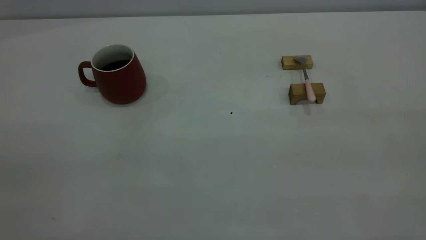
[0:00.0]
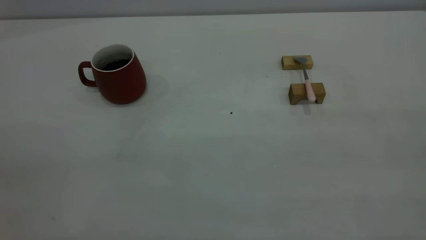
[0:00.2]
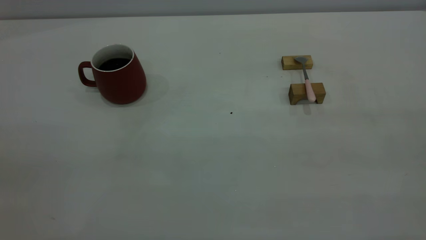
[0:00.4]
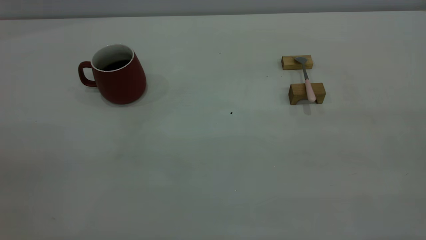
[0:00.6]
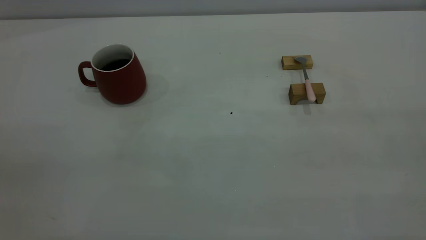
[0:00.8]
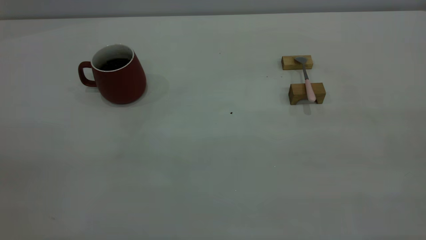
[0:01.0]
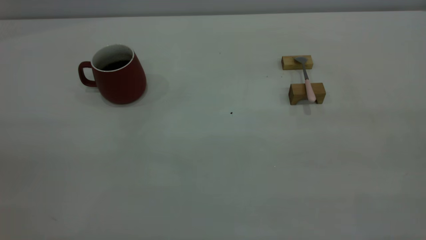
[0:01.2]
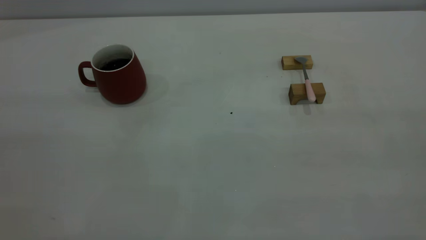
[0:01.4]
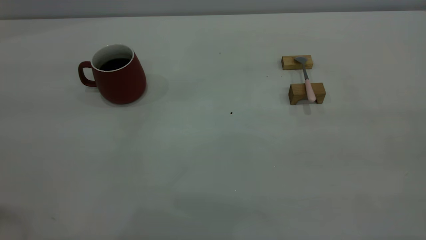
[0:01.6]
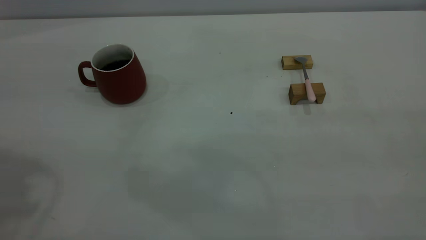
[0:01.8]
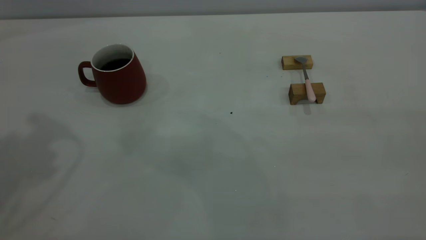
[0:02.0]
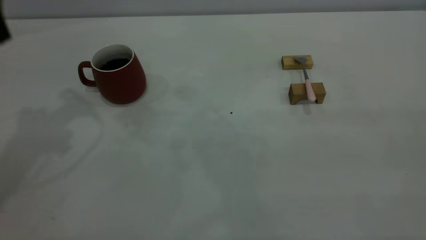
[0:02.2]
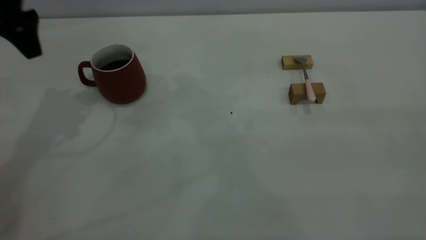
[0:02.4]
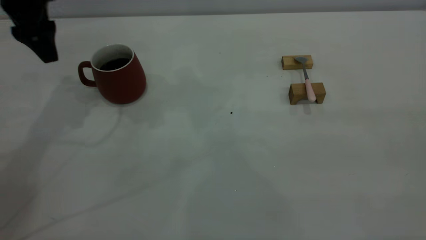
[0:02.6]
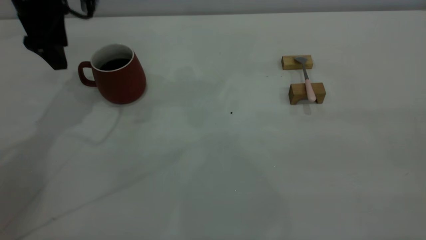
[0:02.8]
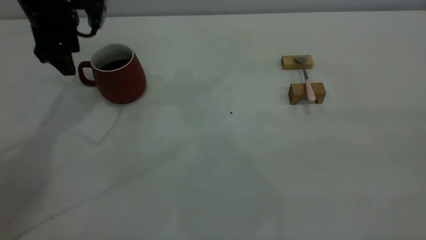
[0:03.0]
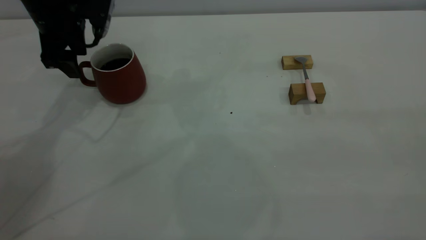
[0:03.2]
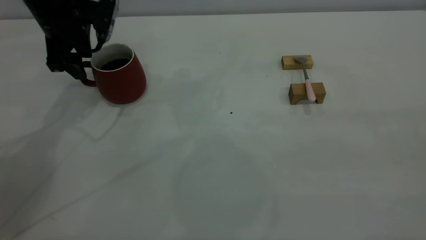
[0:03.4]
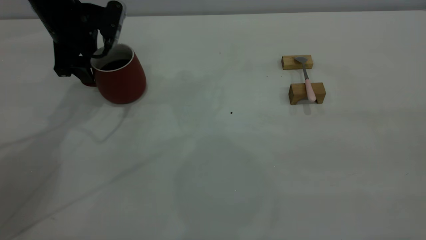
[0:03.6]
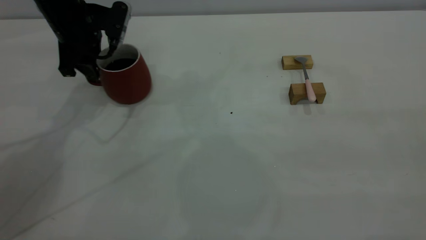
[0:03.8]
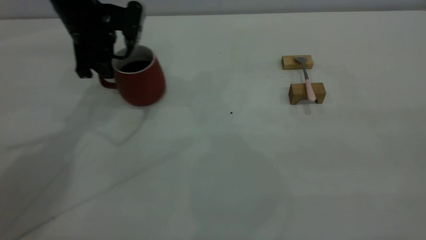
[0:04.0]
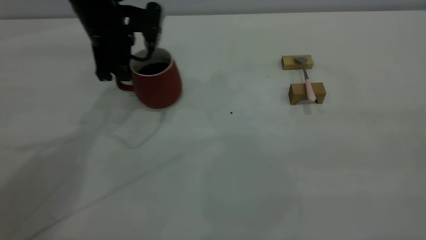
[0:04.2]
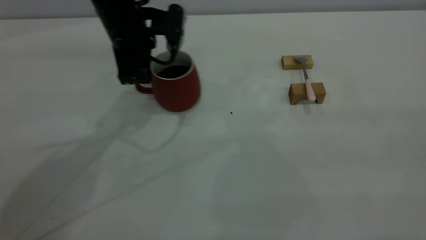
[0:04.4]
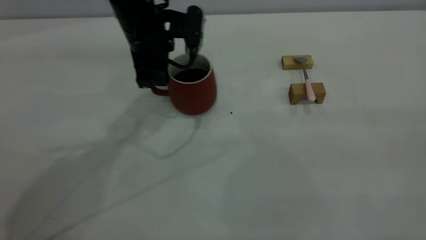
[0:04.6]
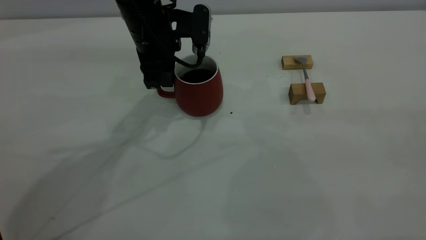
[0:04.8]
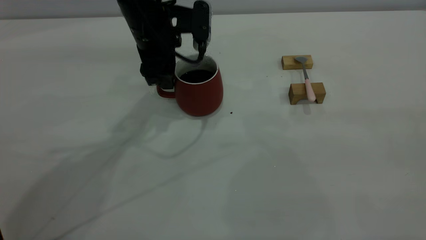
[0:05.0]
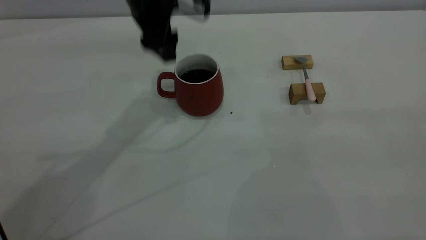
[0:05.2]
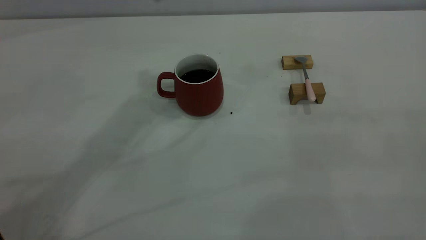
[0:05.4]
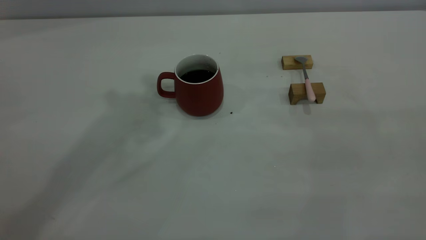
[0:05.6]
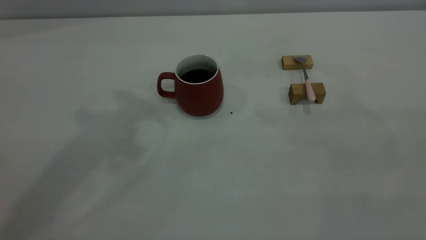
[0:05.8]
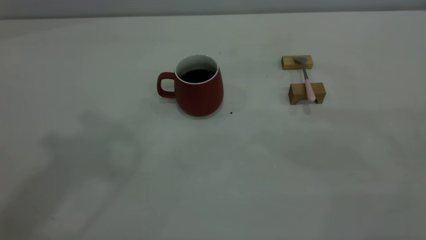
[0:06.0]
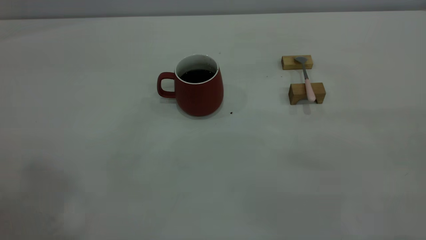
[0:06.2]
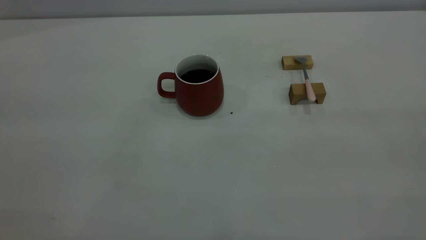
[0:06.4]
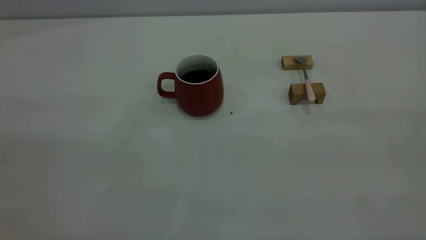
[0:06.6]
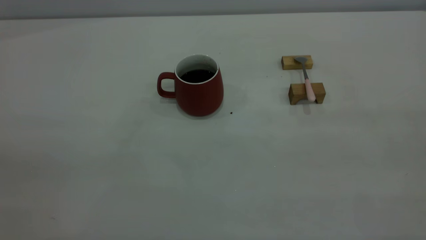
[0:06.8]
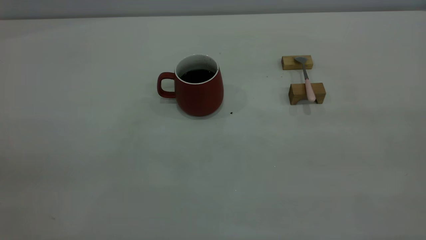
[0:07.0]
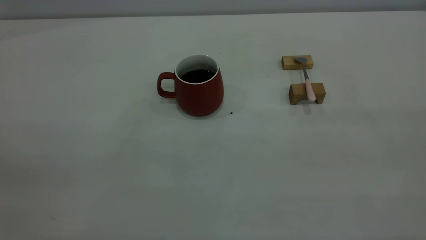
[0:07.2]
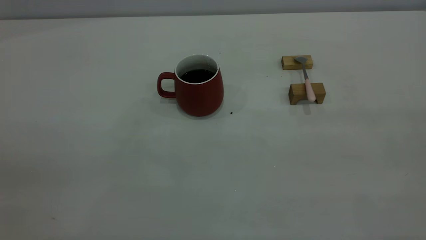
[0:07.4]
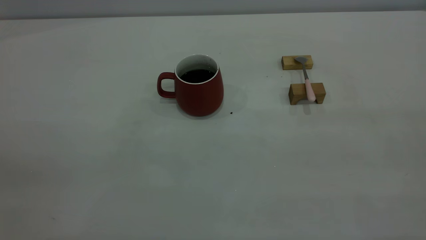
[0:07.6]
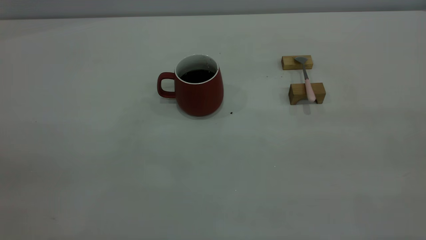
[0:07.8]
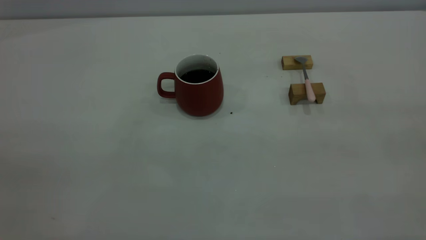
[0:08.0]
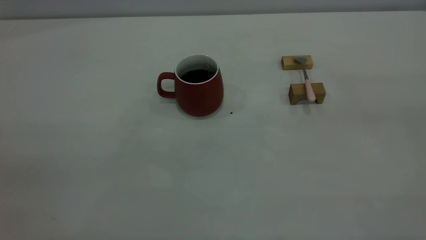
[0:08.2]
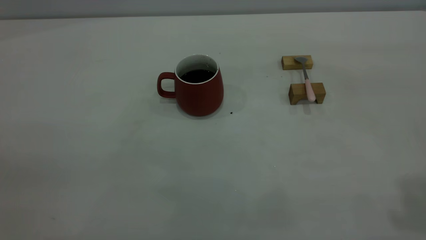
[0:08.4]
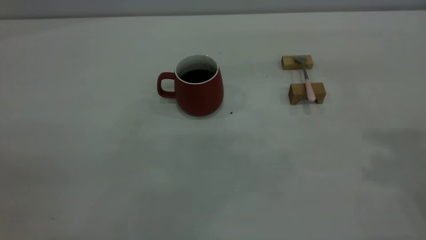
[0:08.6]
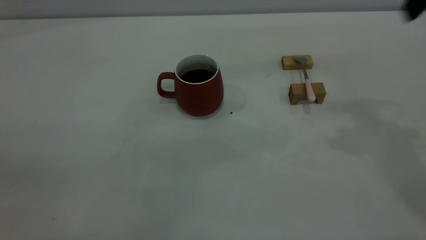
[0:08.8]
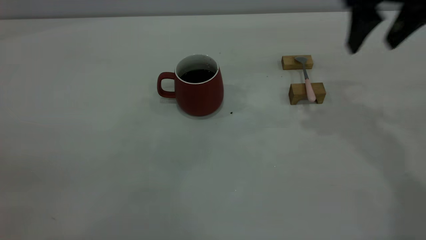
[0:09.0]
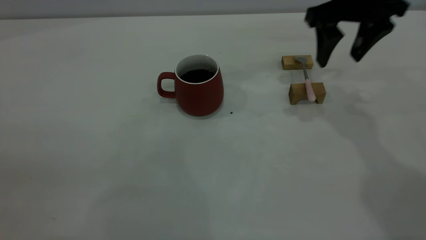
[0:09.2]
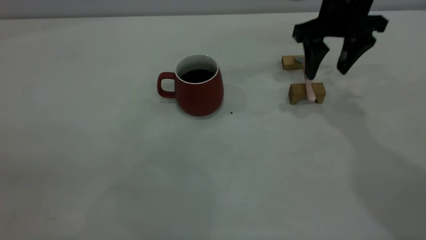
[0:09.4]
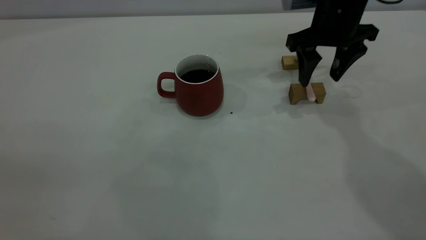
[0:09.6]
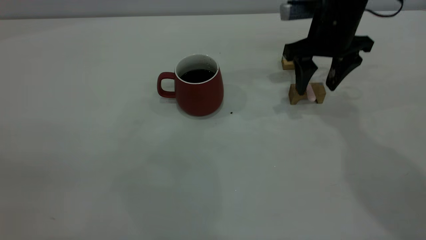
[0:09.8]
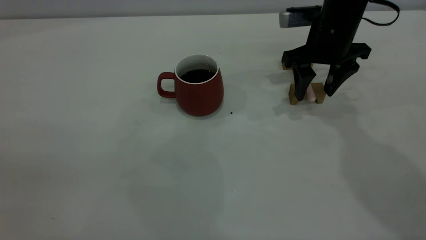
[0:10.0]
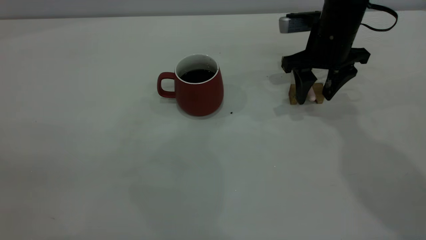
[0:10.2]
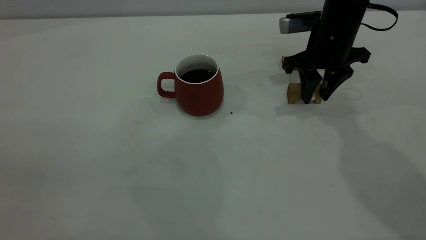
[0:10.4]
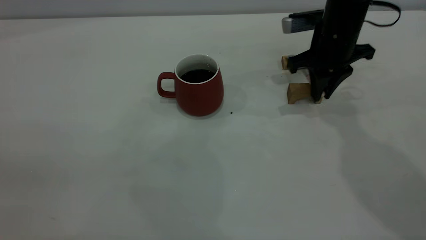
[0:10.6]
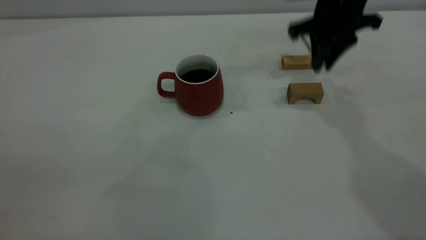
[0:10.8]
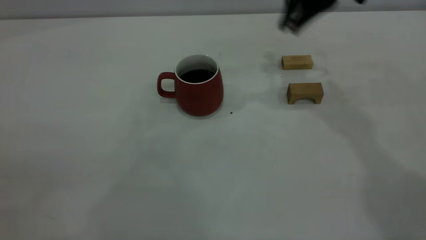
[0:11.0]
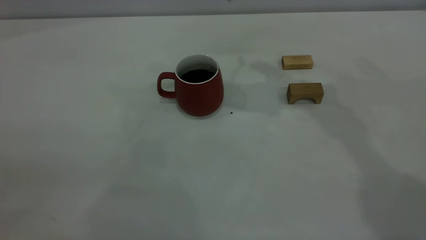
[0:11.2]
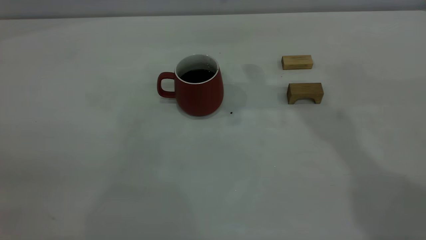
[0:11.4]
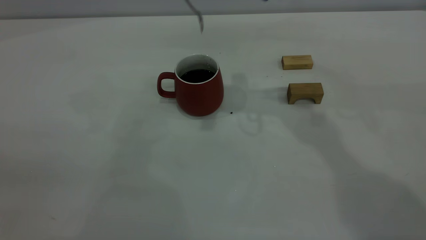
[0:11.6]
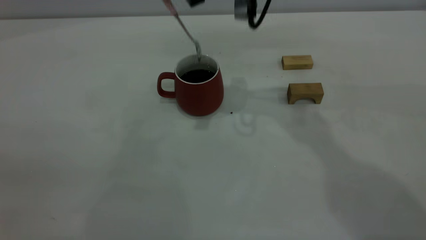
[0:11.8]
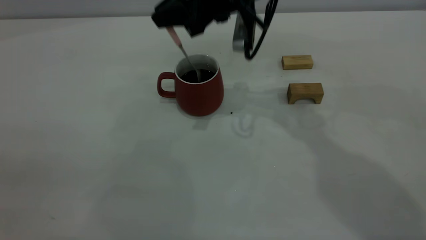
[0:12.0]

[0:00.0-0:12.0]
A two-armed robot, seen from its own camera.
Step, 0:00.0 to 0:05.2: Move the cup with coffee to the center of view.
Step, 0:05.4 to 0:10.6: Pick up the spoon.
0:01.6 to 0:03.0: The left gripper moves forward and downward, approximately 40 cm, and opens its fingers.
0:03.0 to 0:04.4: The left gripper heads to the right, covering approximately 10 cm, and closes its fingers.
0:04.4 to 0:06.0: The left gripper moves upward and backward, some 40 cm, and opens, then closes once more.
0:07.6 to 0:09.0: The right gripper shifts roughly 35 cm forward.
0:09.0 to 0:10.4: The right gripper goes roughly 15 cm downward and forward, and closes up.
0:10.4 to 0:12.0: The right gripper is displaced to the left and upward by approximately 15 cm, and closes up.

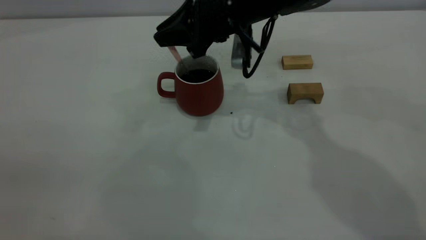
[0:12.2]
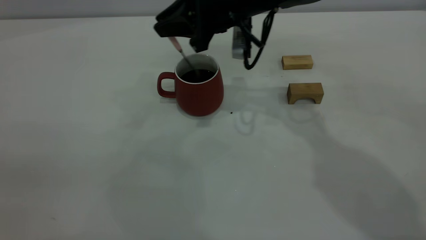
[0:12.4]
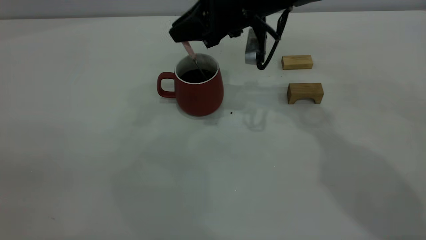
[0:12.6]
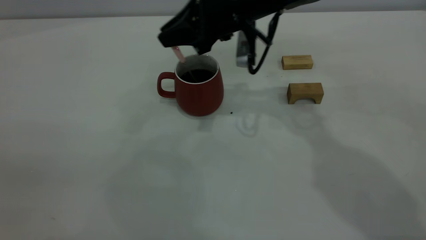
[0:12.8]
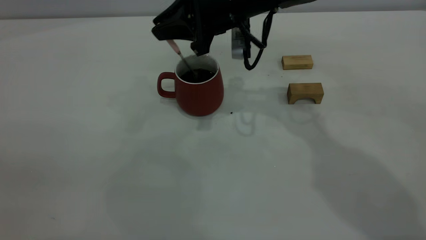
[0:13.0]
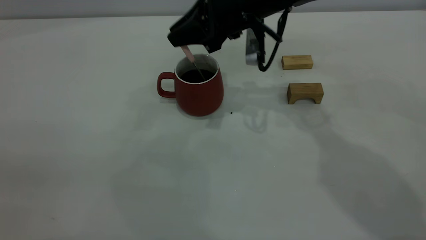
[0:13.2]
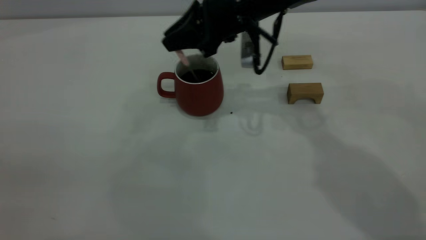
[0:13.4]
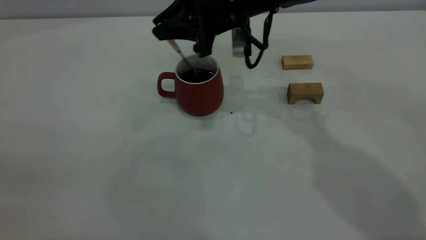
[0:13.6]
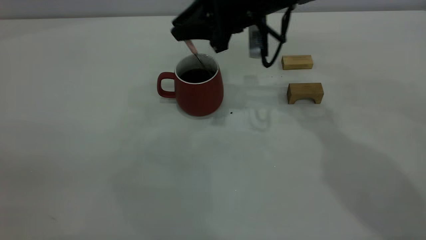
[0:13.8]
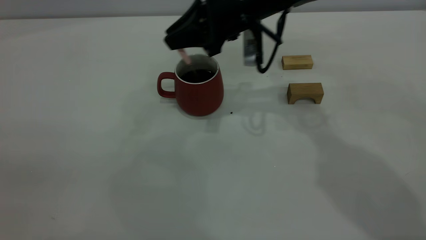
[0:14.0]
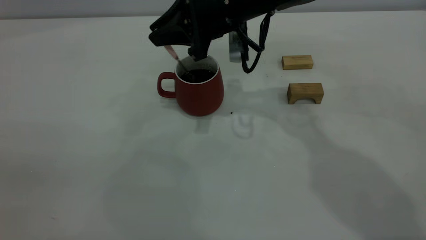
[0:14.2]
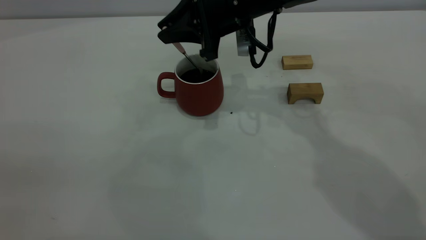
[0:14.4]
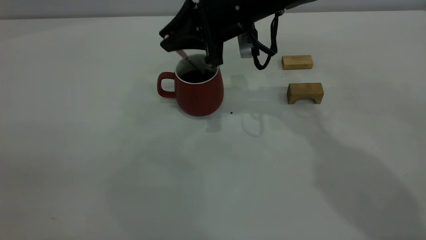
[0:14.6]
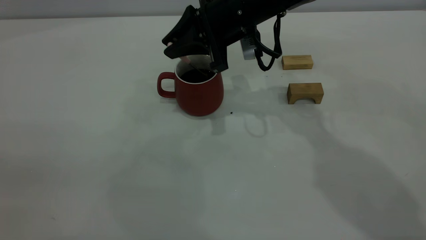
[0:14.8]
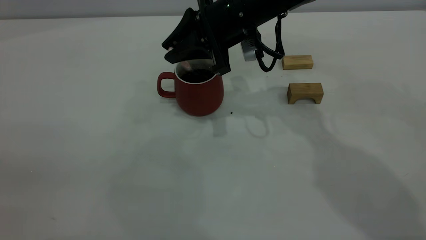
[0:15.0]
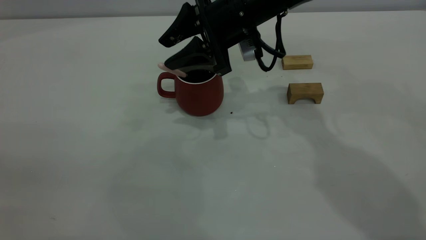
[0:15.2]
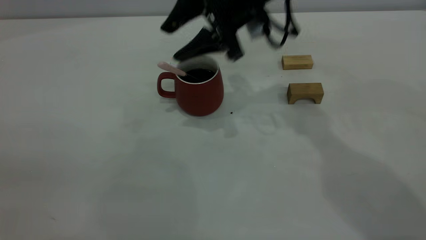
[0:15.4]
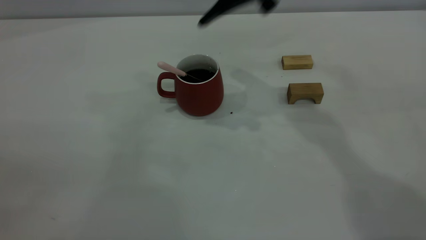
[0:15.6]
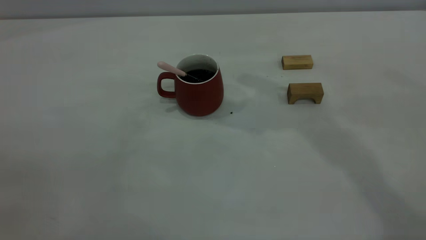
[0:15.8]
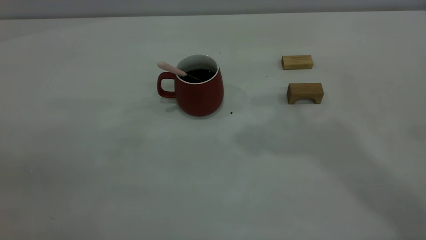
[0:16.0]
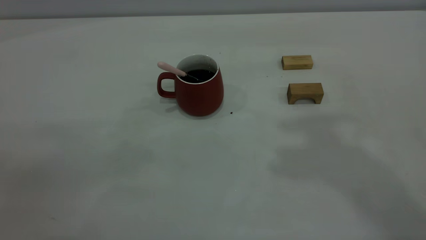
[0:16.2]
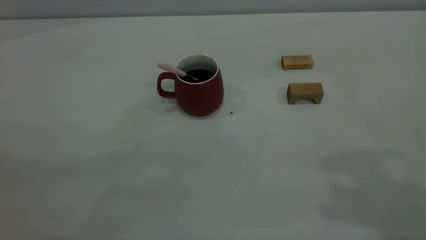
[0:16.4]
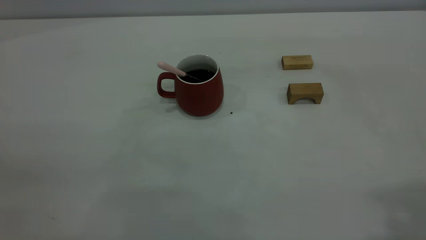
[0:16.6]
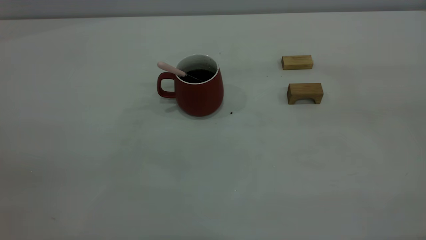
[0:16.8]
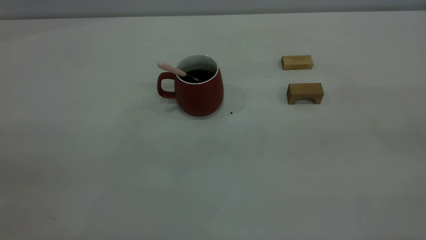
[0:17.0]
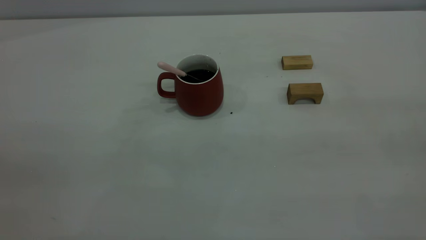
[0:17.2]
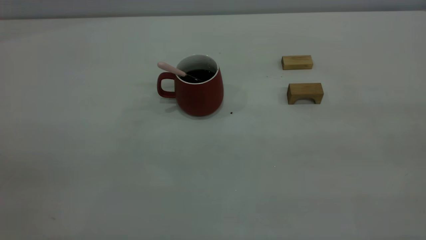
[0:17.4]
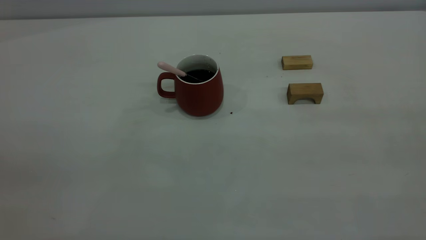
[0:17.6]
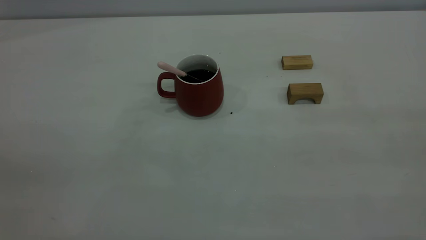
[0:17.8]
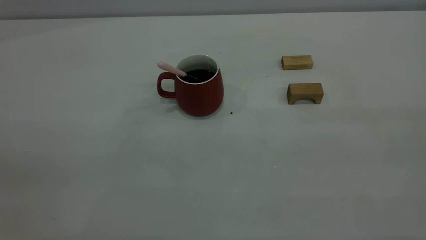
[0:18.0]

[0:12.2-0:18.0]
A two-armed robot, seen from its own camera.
Step, 0:12.2 to 0:15.4: Stir the coffee in the cup.
0:12.2 to 0:13.6: The grippers move only a little.
0:13.6 to 0:15.0: There are only small adjustments of the grippers.
0:15.0 to 0:16.6: The right gripper heads backward, upward and to the right, covering approximately 50 cm, and opens its fingers.
